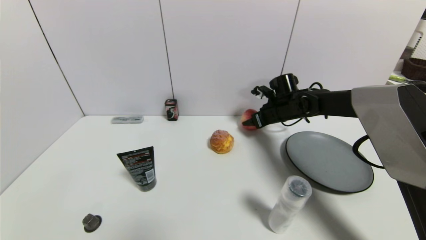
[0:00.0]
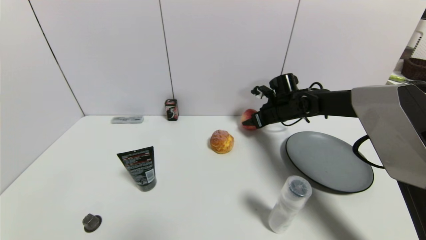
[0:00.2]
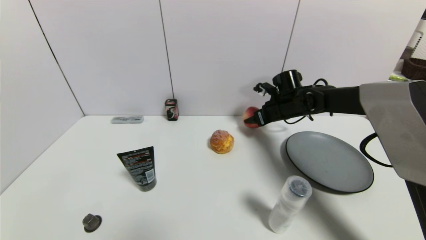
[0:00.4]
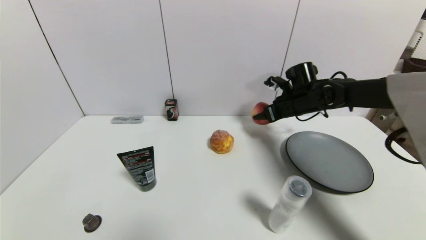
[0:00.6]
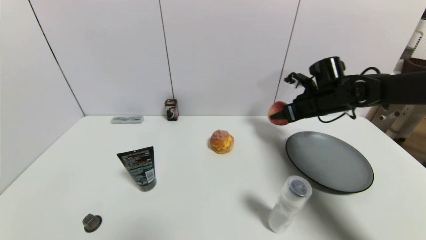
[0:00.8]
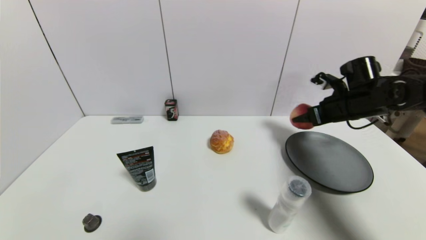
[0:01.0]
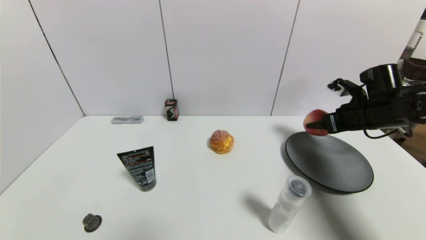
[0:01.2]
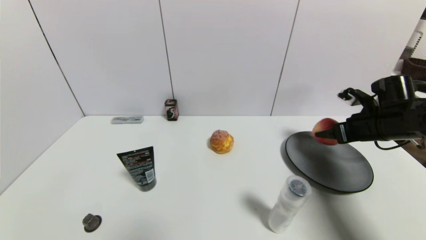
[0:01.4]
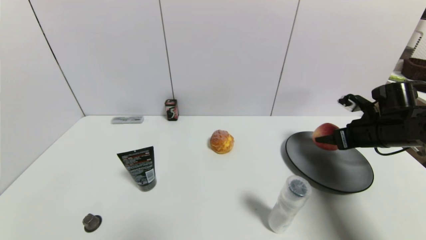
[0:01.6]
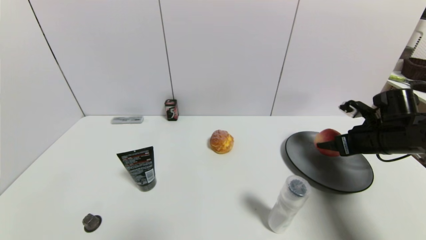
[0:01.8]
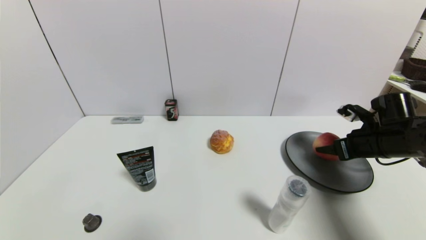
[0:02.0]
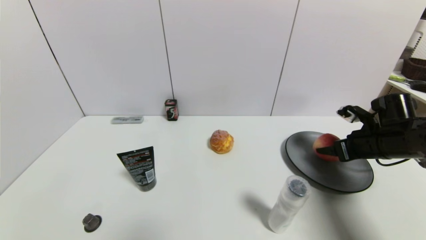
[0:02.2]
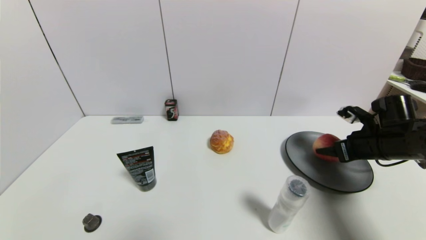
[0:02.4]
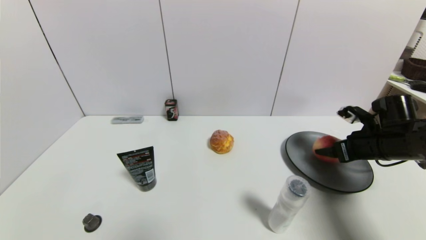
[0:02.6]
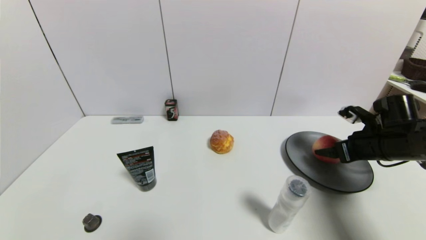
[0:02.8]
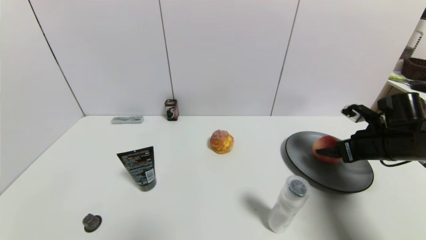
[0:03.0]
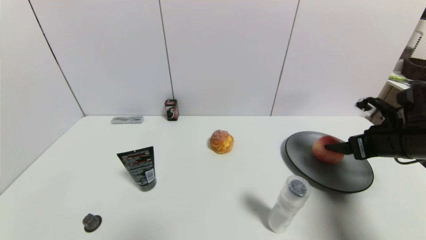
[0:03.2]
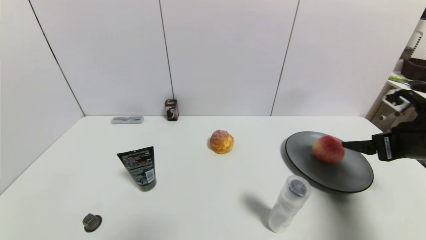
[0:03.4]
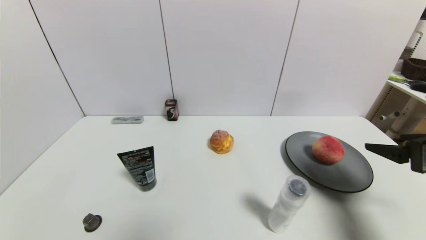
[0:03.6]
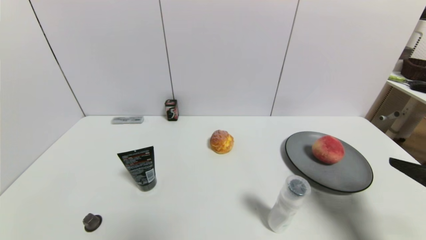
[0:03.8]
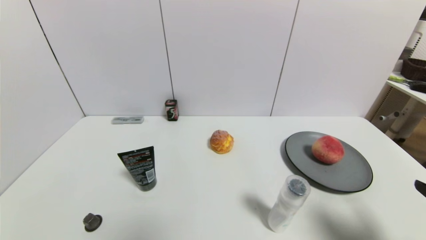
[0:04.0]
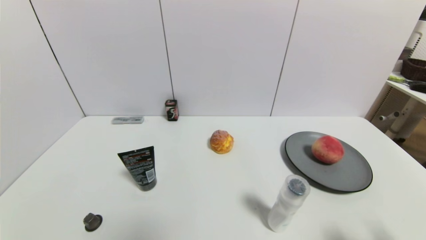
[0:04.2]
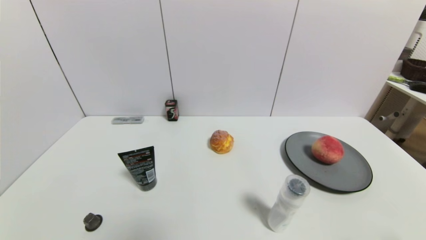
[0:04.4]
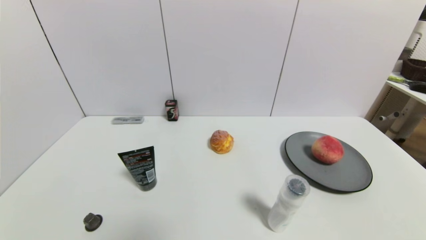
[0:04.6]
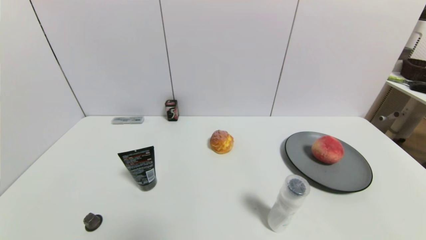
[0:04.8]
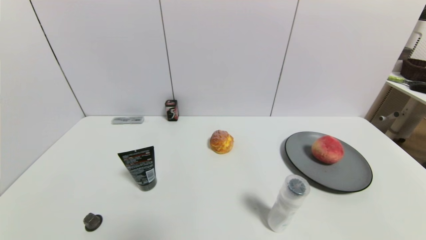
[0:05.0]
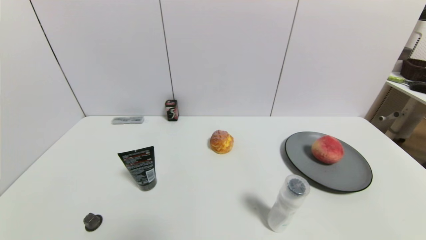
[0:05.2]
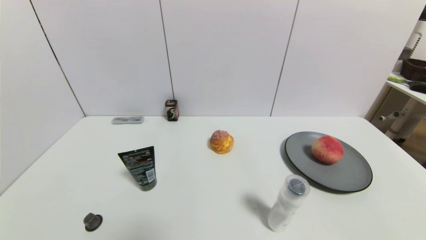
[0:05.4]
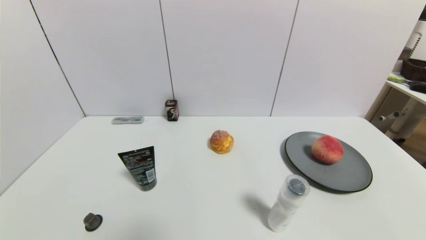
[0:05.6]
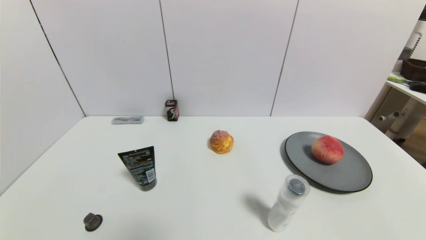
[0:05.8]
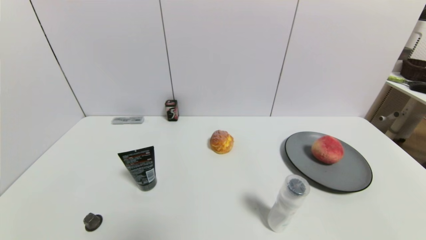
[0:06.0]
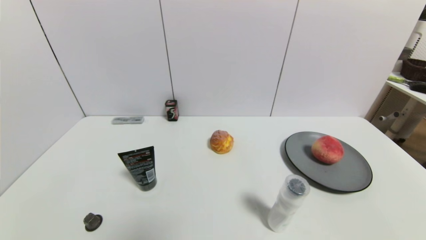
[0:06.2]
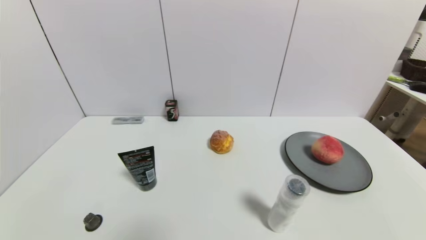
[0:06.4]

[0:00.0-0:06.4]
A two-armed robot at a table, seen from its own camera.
Task of the whole recording: use a gripper to pick the target object and place on the gray plate.
Step, 0:00.2 to 0:03.4: Place the peach on the gray plate with the right gripper.
0:00.0 to 0:01.6: The right gripper goes roughly 20 cm to the right and backward.
0:01.6 to 0:03.2: The right gripper is displaced backward by approximately 5 cm, and opens its fingers.
0:03.2 to 0:04.8: The right gripper is displaced backward by some 30 cm.
